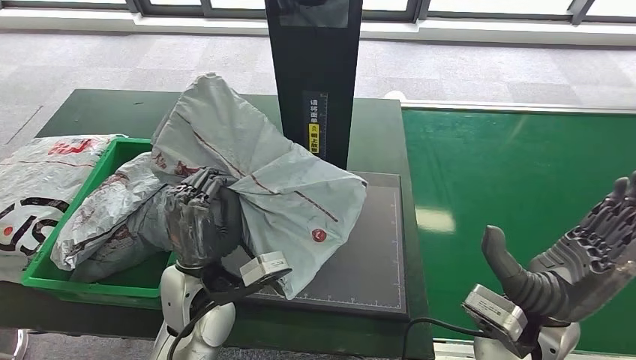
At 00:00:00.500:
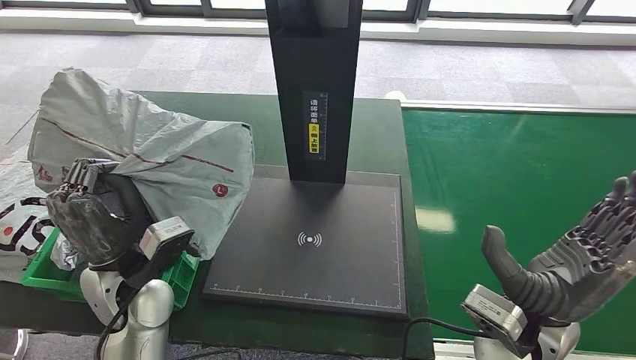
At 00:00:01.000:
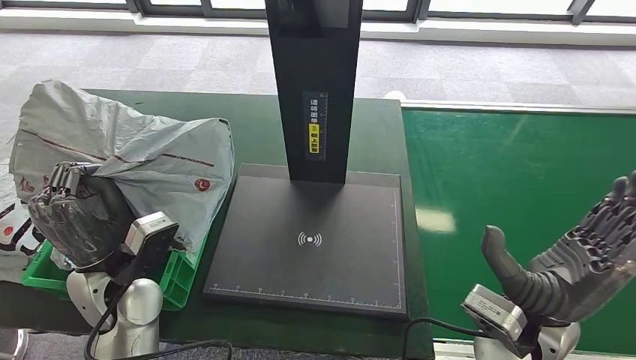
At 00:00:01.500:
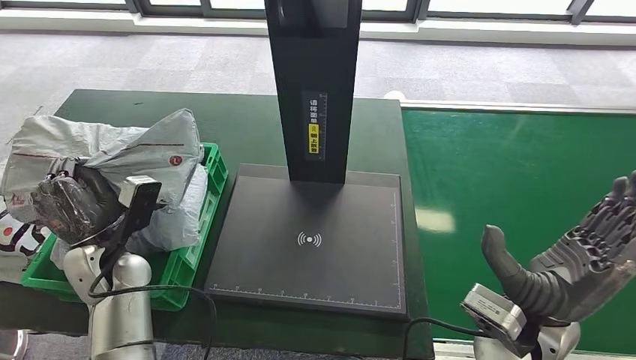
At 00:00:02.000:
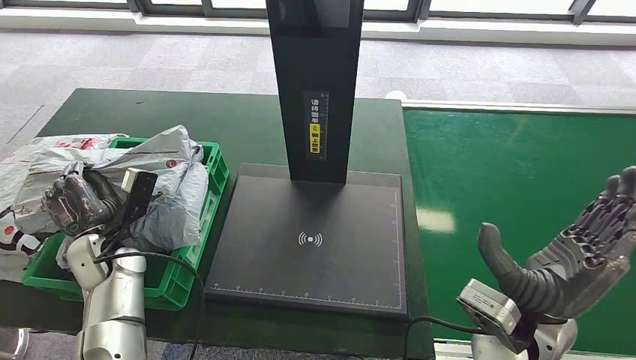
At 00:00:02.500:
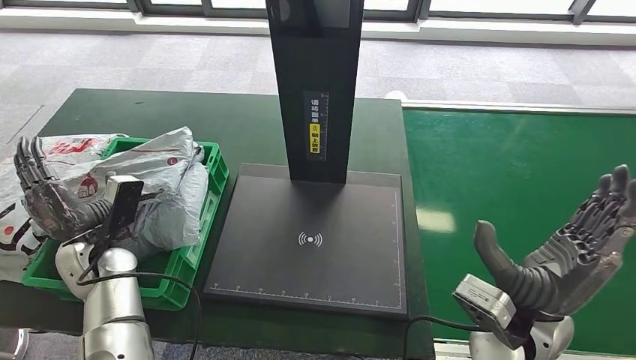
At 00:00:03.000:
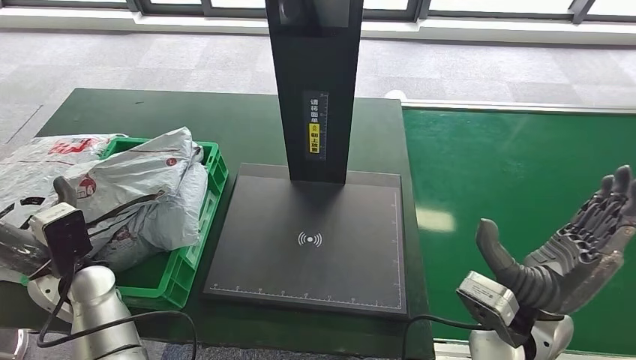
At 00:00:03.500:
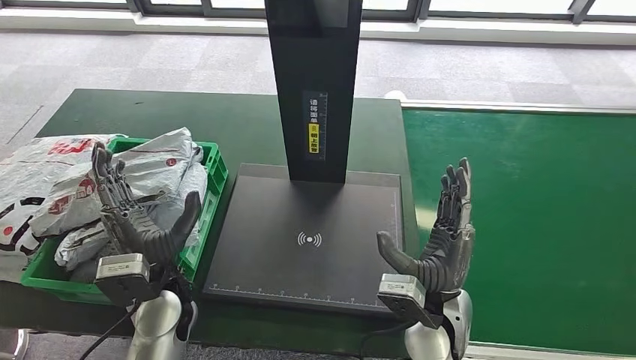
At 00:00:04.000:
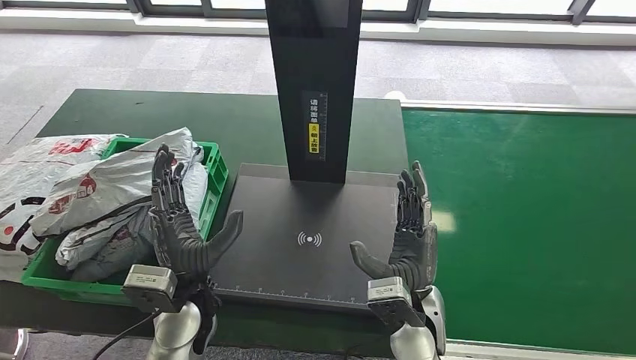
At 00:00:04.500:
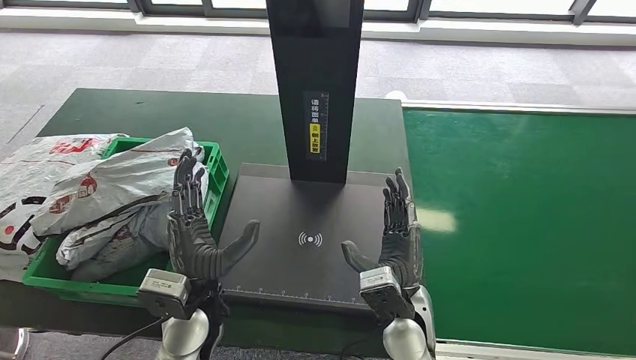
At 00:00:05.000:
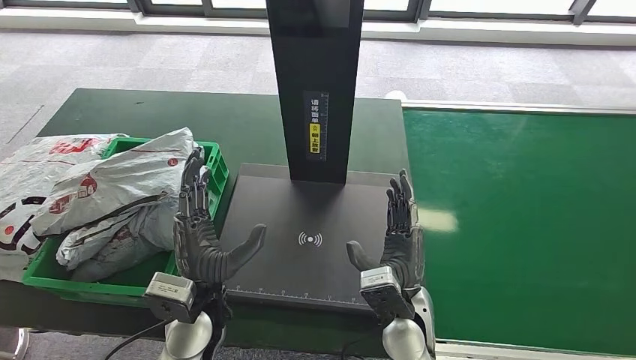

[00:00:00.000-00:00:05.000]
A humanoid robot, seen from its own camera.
Step, 00:00:01.000 to 00:00:05.000: Place the parcel into the delivery box.
00:00:02.500 to 00:00:05.000: The left hand moves to the right, some 20 cm. Meanwhile the right hand shifts approximately 15 cm to the left and downward.
